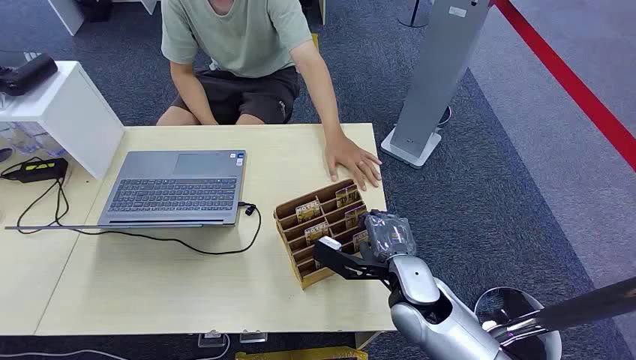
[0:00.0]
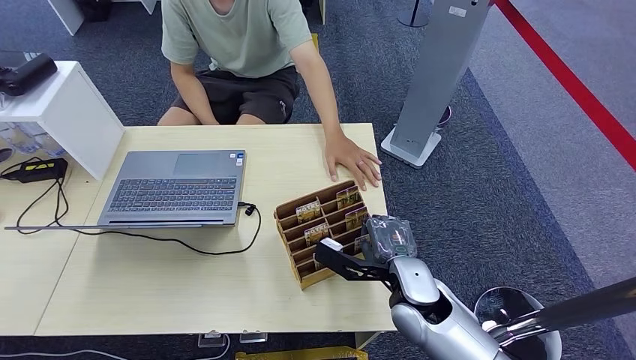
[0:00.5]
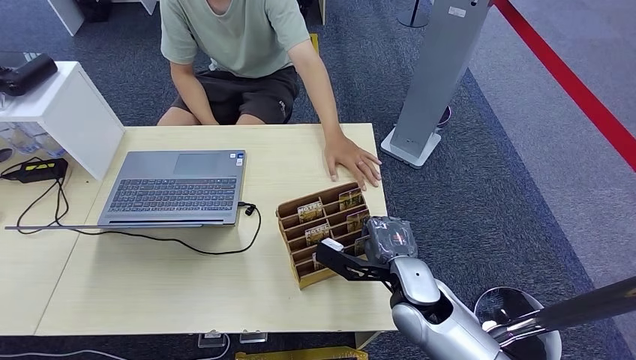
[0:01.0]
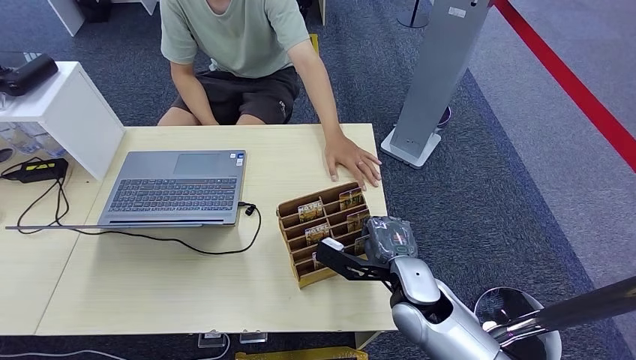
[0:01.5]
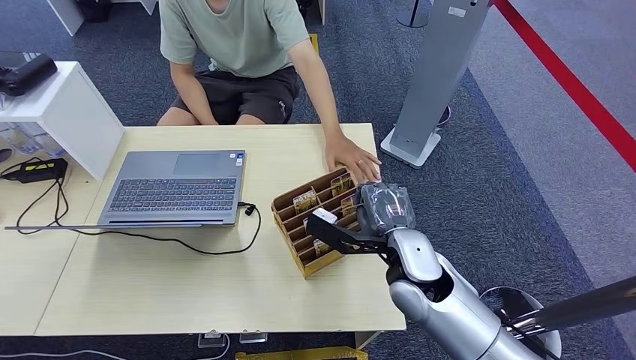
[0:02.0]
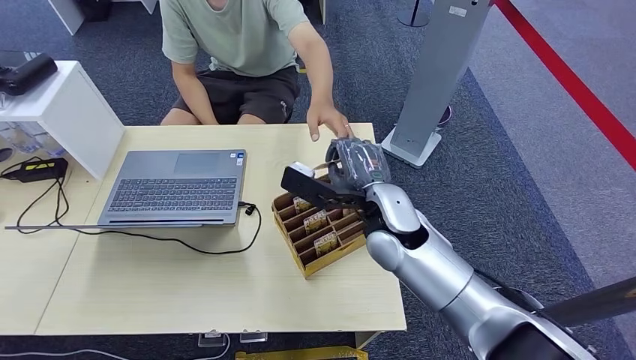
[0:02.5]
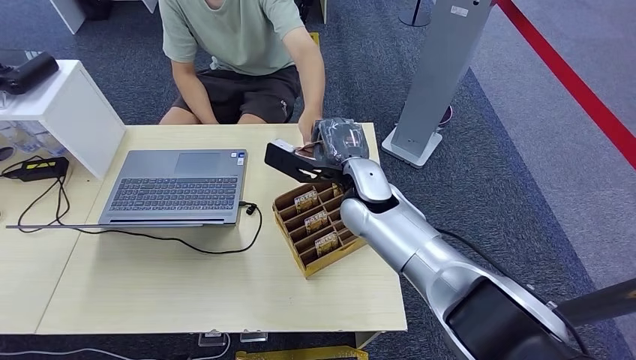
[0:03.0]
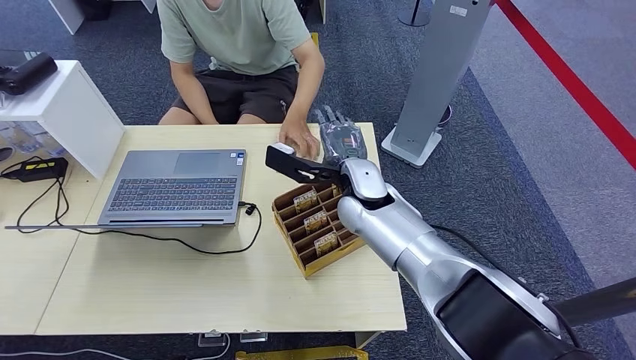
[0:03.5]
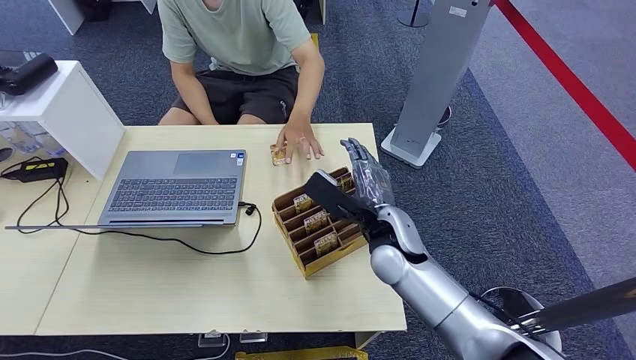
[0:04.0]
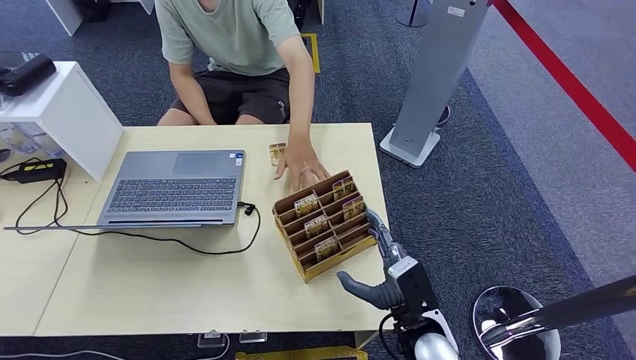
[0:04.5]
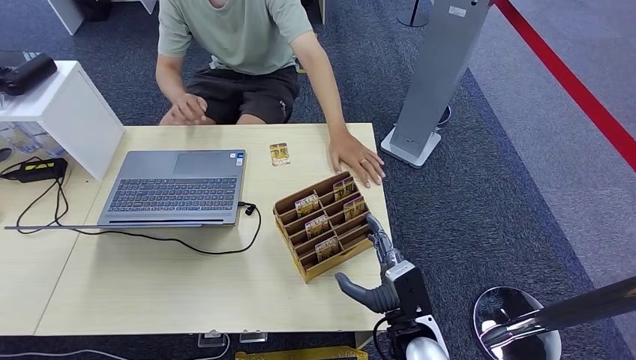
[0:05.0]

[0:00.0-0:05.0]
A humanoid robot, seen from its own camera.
Step, 0:00.0 to 0:02.5: Pick up the room card from the card holder.
Step, 0:03.0 to 0:05.0: Hand the room card to the target.
0:02.5 to 0:05.0: The right hand moves downward and backward, some 20 cm.

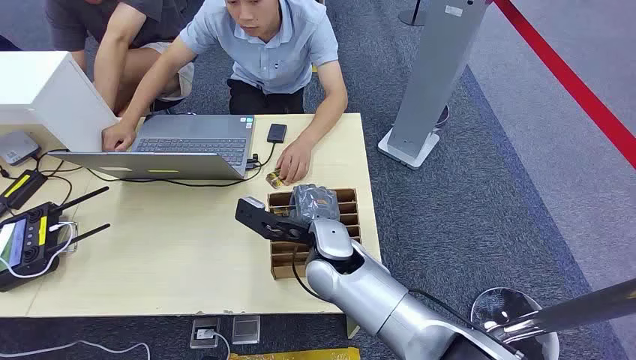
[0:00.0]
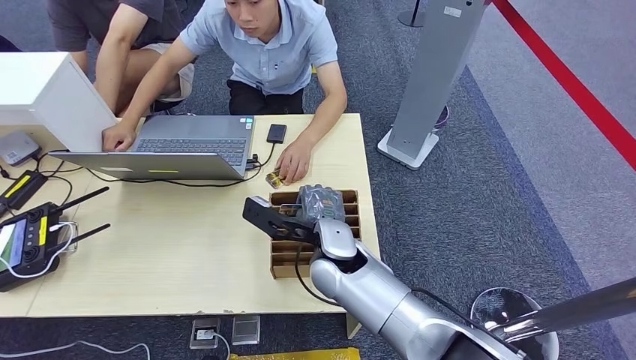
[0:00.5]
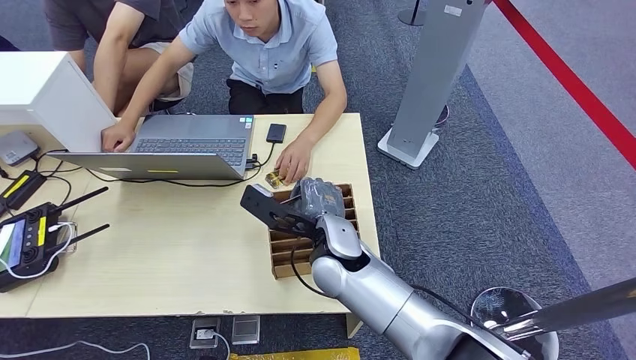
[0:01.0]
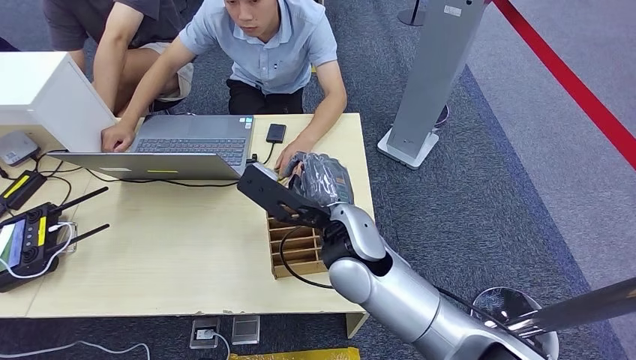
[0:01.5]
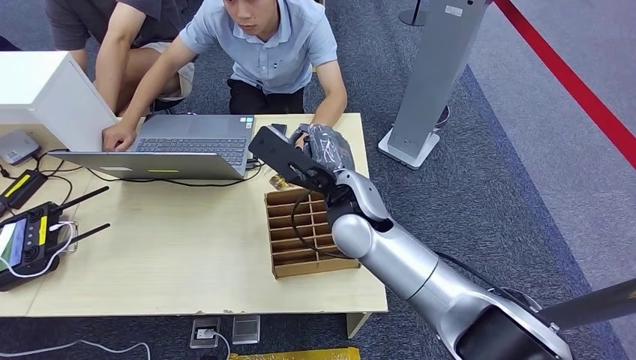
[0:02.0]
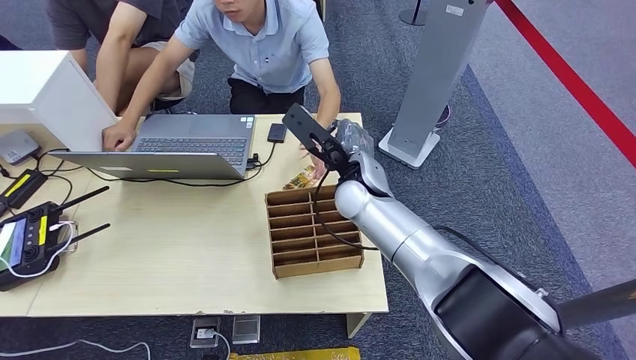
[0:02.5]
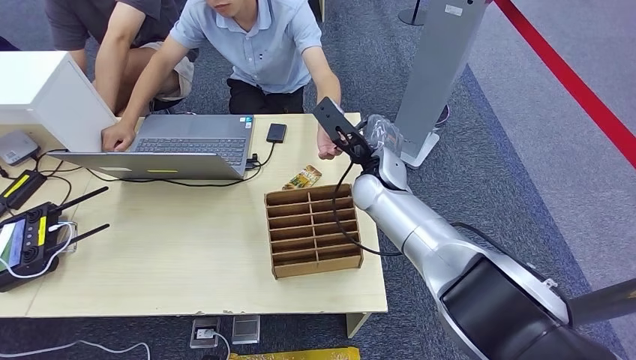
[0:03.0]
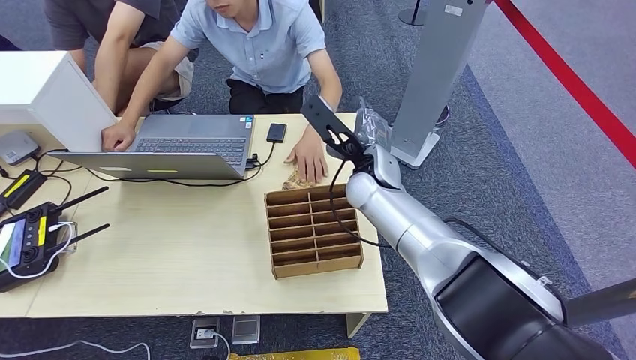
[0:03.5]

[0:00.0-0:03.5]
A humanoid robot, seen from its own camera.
Step, 0:00.0 to 0:01.5: Pick up the room card from the card holder.
Step, 0:02.0 to 0:03.5: Hand the room card to the target.
0:02.0 to 0:03.5: The right hand shifts roughly 10 cm forward.
